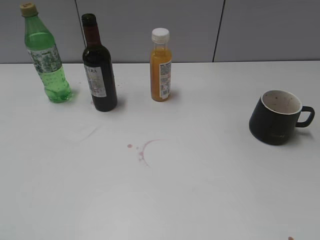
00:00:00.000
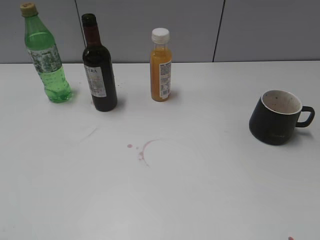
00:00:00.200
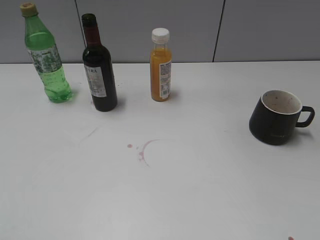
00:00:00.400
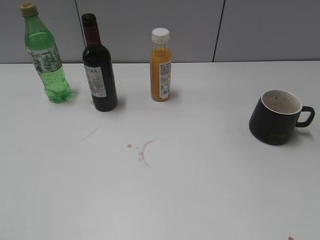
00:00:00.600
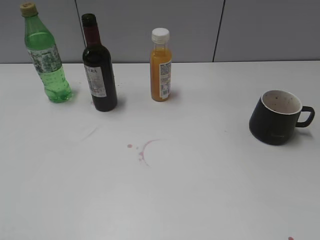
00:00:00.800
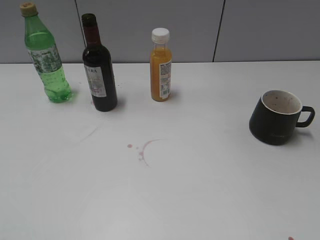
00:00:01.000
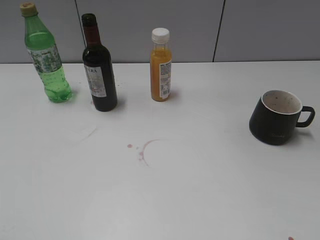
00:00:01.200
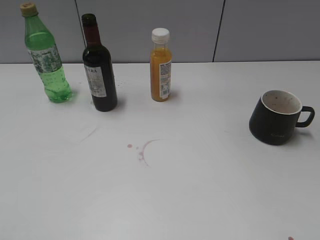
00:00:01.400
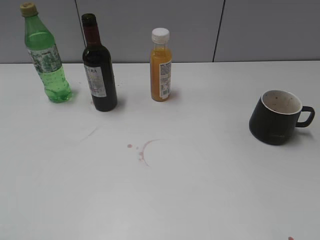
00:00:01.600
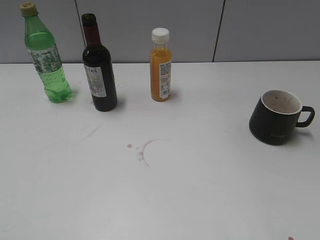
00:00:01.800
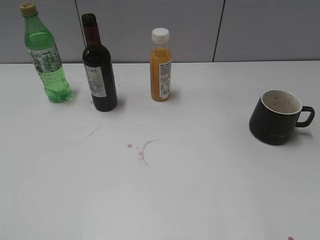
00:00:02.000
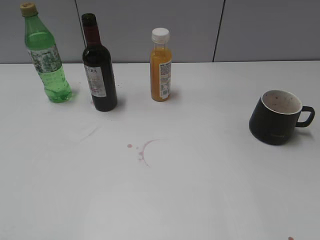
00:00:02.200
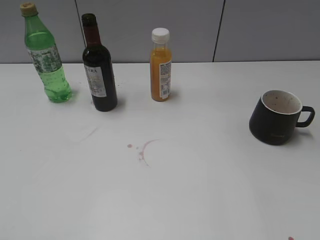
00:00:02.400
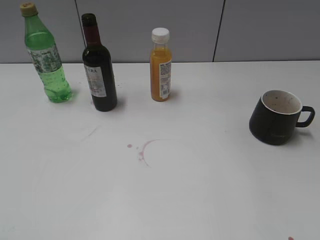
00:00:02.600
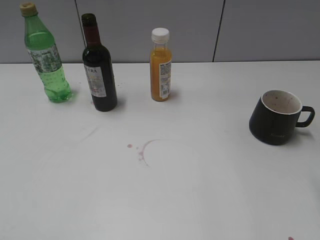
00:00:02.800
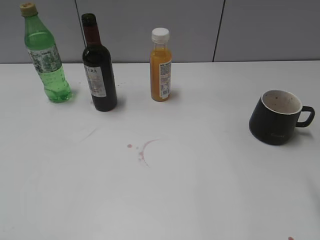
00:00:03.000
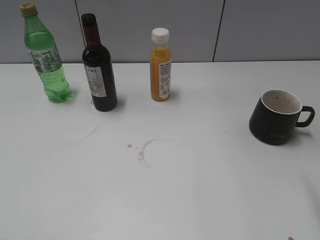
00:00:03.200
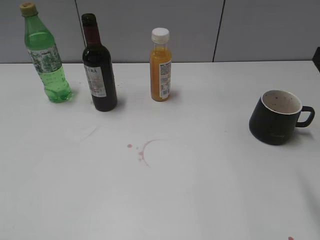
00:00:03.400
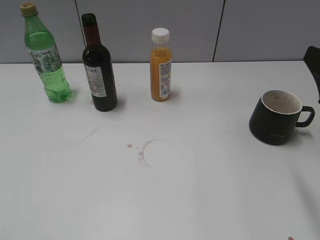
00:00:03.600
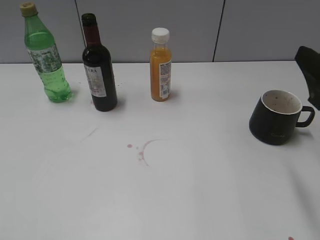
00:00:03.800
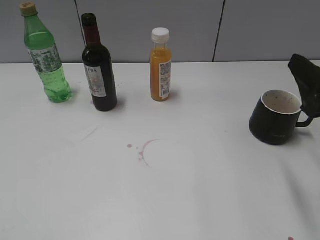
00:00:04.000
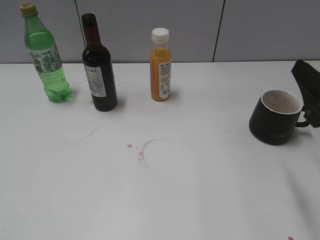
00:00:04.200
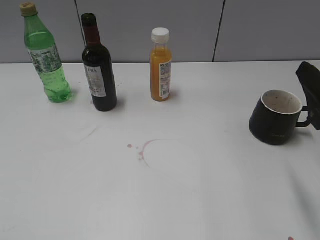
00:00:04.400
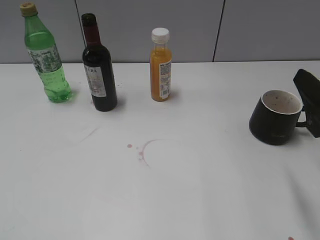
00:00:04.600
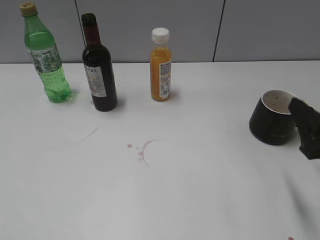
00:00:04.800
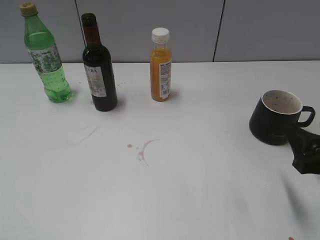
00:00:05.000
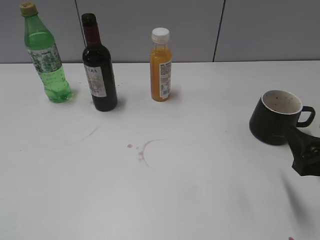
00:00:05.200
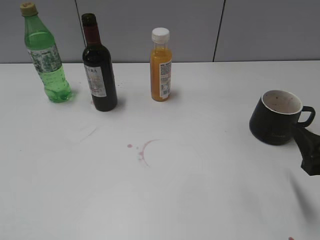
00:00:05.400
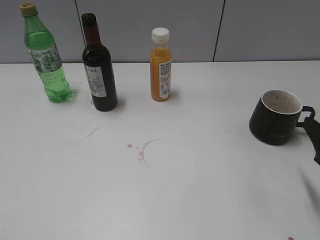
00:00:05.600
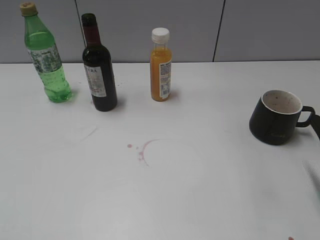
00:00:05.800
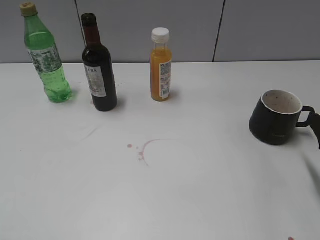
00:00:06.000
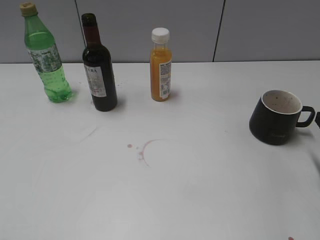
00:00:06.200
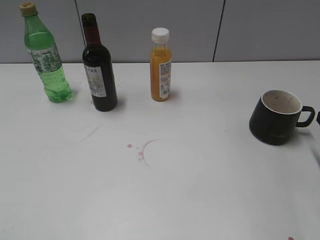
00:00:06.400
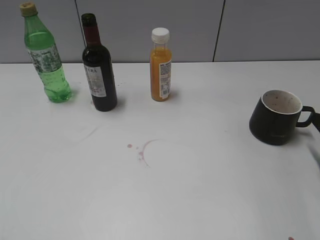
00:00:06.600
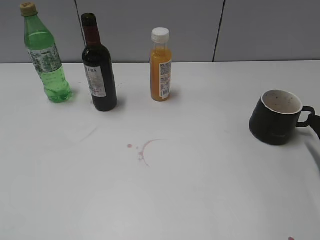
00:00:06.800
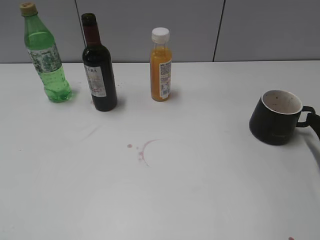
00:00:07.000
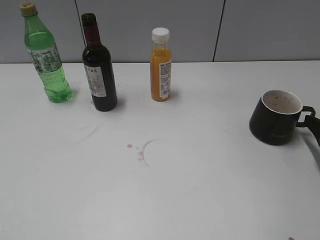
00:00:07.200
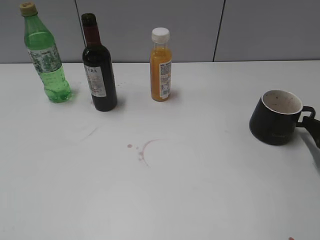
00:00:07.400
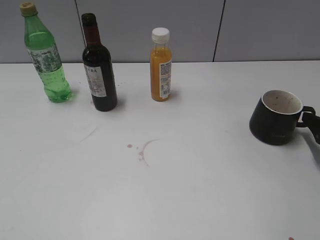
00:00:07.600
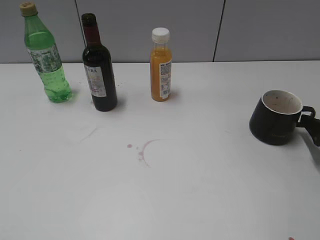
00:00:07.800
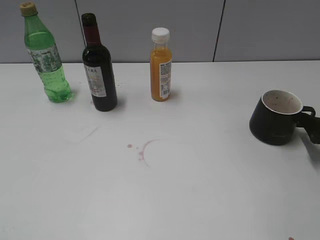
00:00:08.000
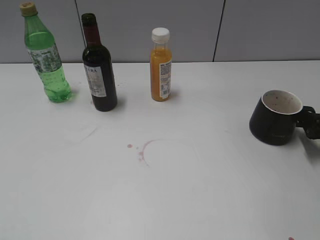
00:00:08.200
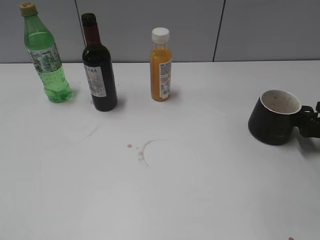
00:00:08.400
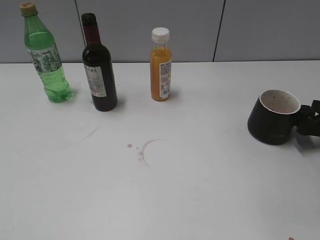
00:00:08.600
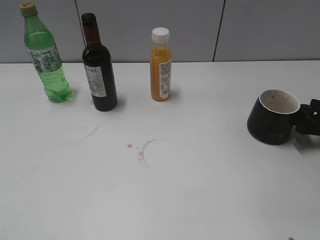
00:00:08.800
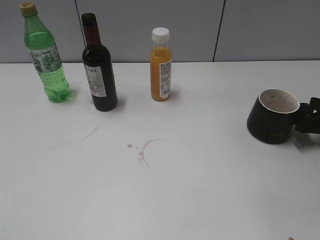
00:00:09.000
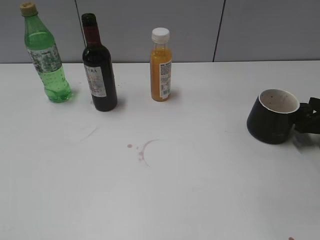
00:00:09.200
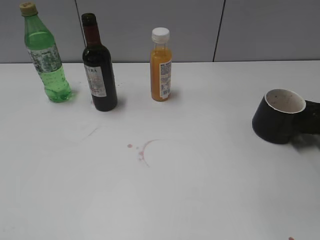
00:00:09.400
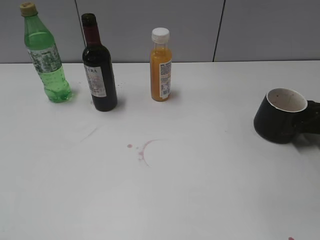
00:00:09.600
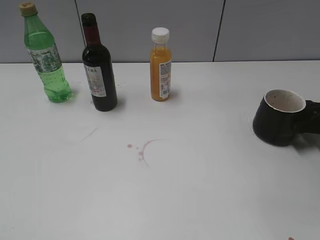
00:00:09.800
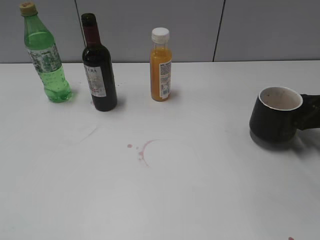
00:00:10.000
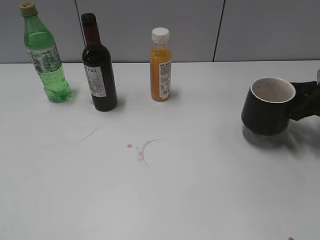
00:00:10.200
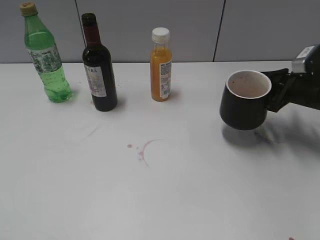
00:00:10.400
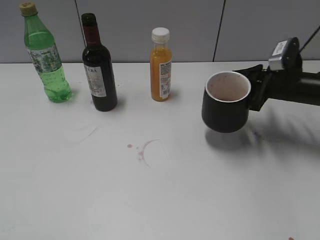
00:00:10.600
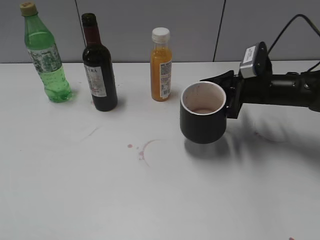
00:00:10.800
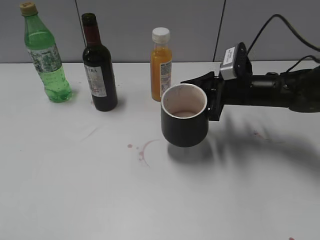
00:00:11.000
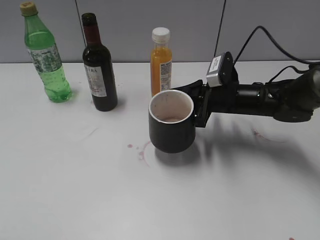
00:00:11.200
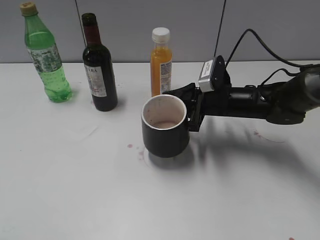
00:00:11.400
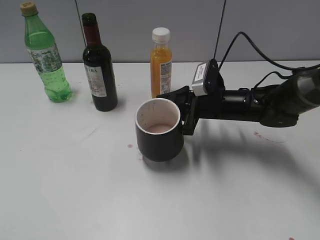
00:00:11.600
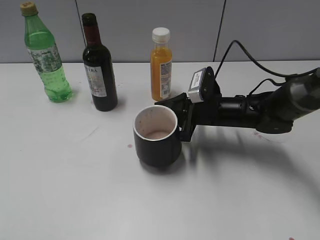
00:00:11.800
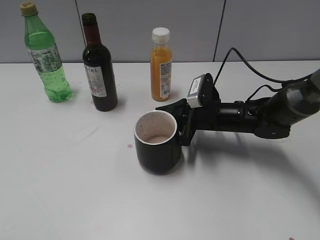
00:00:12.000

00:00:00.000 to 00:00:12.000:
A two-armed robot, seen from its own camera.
Step, 00:00:03.400 to 00:00:09.600: Grasp the black cup with right gripper.
00:00:03.000 to 00:00:04.400: The right gripper shifts some 5 cm downward.
00:00:04.400 to 00:00:06.000: The right gripper moves downward and to the right, approximately 10 cm.
00:00:06.000 to 00:00:07.600: The right gripper shifts some 10 cm forward, downward and to the right.
00:00:07.600 to 00:00:09.000: The right gripper shifts by some 5 cm.
00:00:09.000 to 00:00:10.400: The right gripper shifts approximately 10 cm to the left and upward, and closes up.
00:00:10.400 to 00:00:12.000: The right gripper moves to the left, roughly 15 cm.

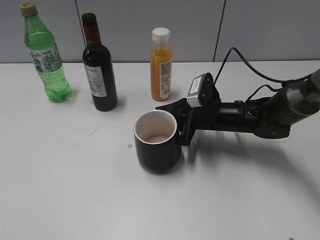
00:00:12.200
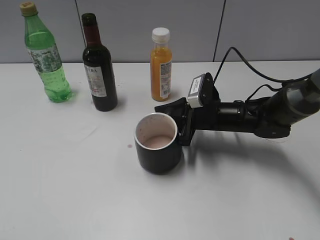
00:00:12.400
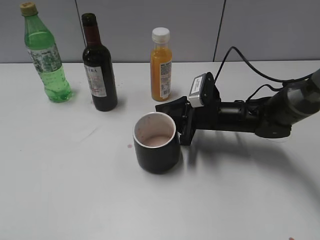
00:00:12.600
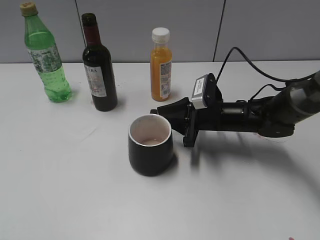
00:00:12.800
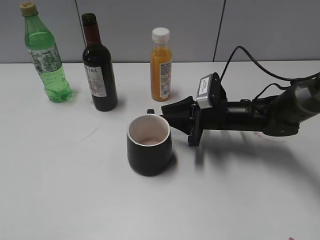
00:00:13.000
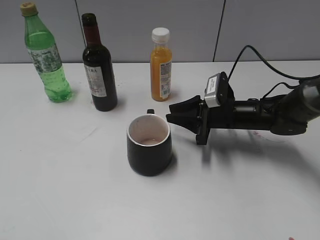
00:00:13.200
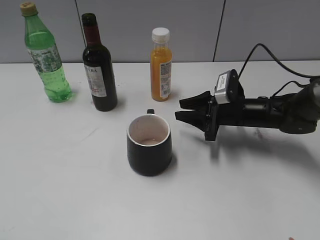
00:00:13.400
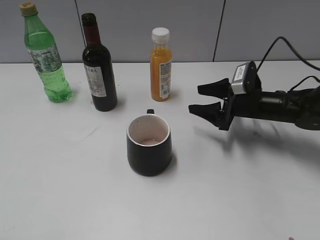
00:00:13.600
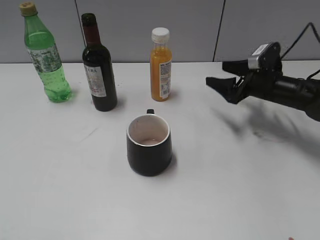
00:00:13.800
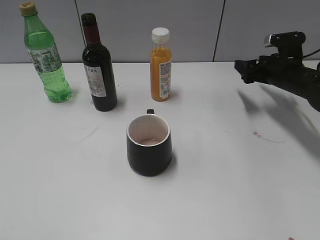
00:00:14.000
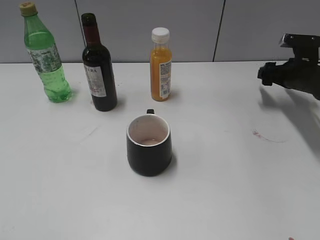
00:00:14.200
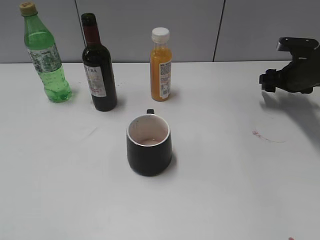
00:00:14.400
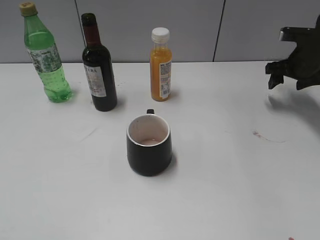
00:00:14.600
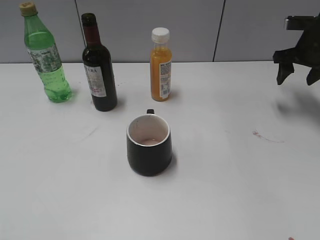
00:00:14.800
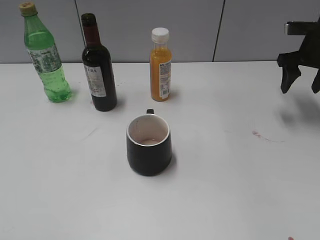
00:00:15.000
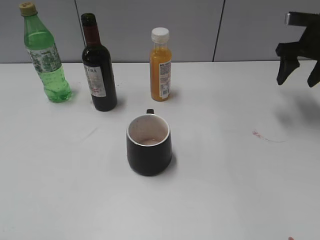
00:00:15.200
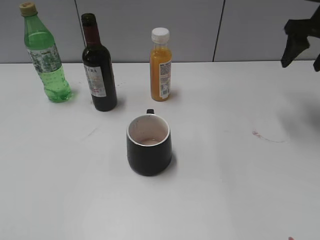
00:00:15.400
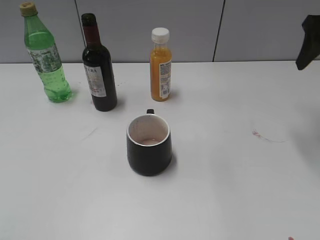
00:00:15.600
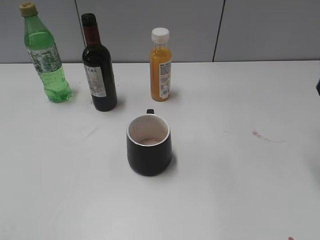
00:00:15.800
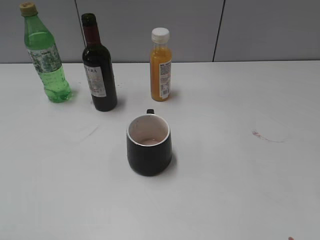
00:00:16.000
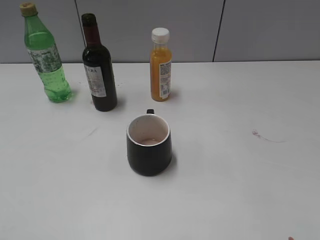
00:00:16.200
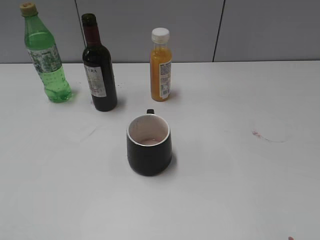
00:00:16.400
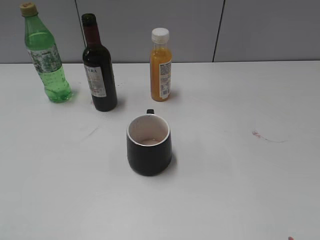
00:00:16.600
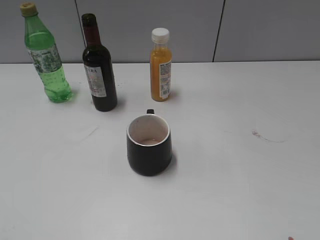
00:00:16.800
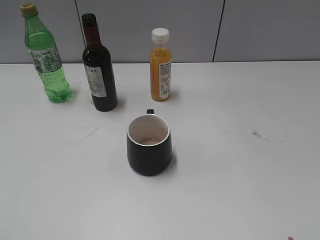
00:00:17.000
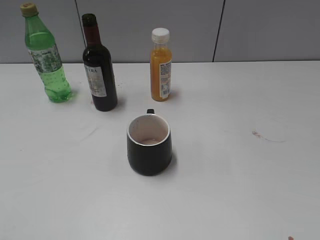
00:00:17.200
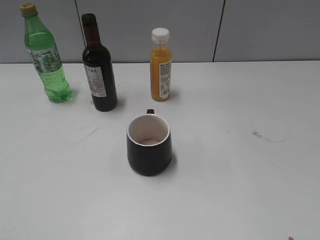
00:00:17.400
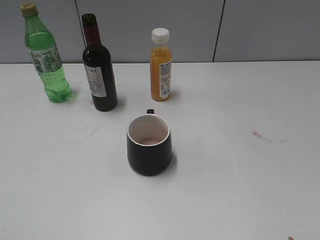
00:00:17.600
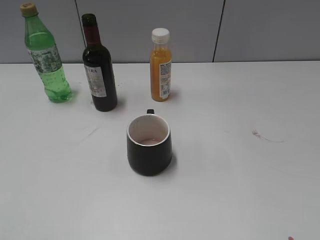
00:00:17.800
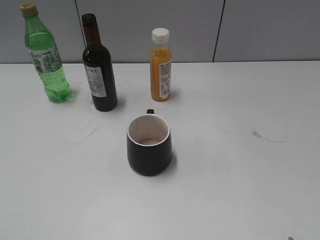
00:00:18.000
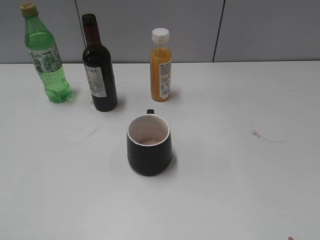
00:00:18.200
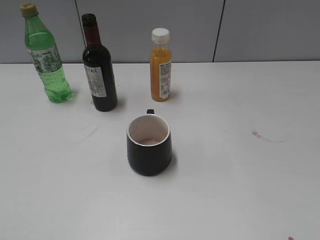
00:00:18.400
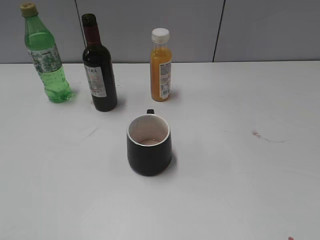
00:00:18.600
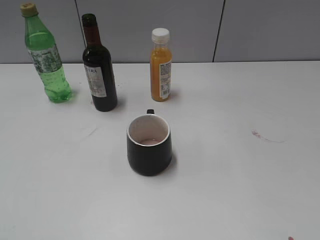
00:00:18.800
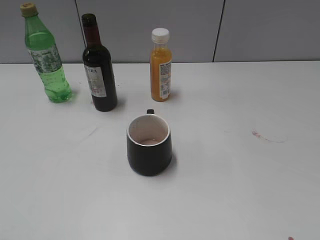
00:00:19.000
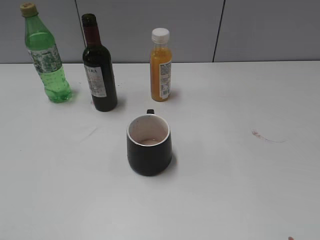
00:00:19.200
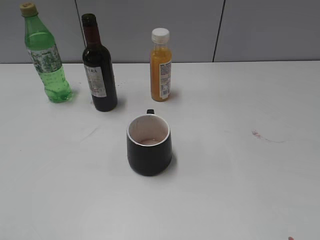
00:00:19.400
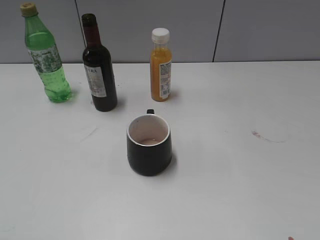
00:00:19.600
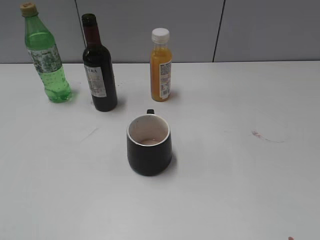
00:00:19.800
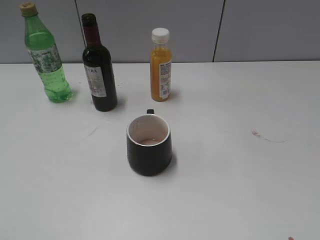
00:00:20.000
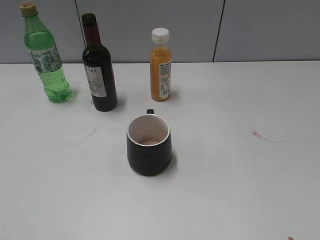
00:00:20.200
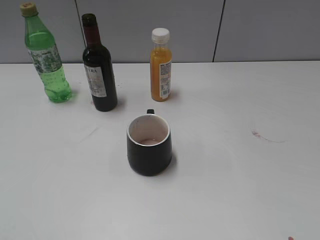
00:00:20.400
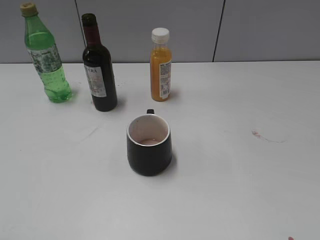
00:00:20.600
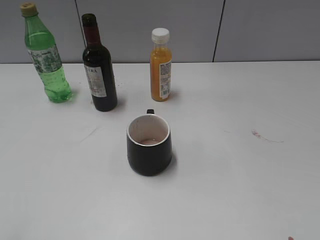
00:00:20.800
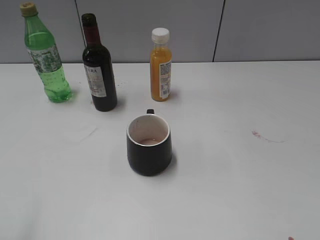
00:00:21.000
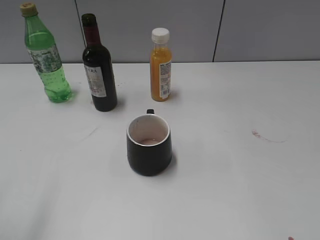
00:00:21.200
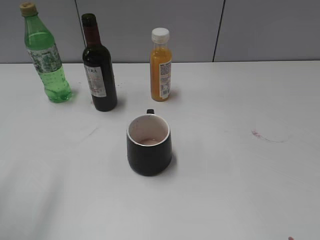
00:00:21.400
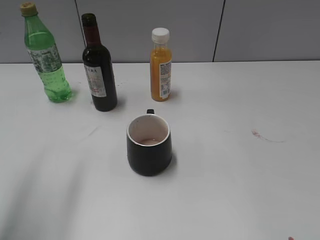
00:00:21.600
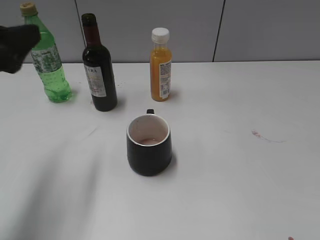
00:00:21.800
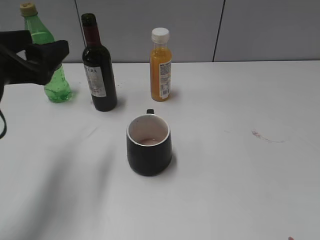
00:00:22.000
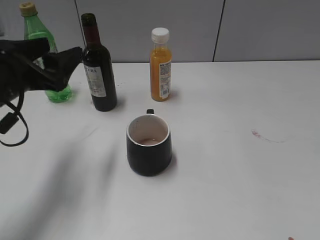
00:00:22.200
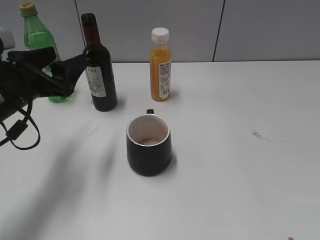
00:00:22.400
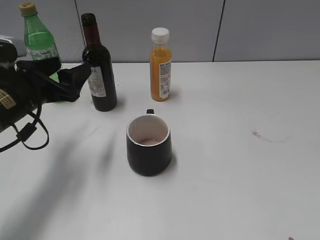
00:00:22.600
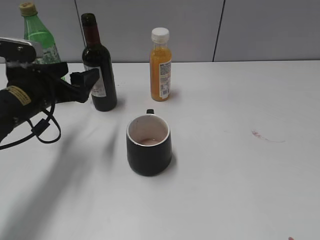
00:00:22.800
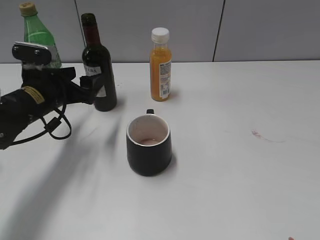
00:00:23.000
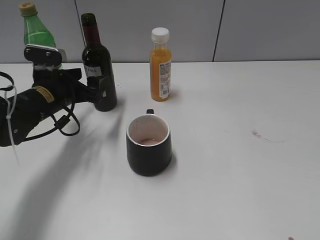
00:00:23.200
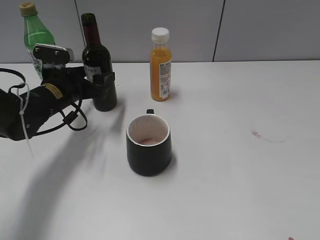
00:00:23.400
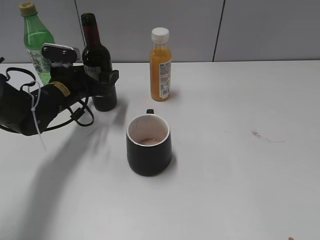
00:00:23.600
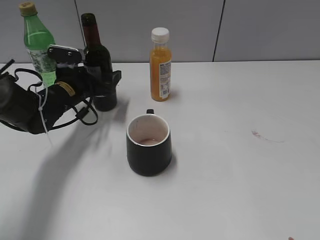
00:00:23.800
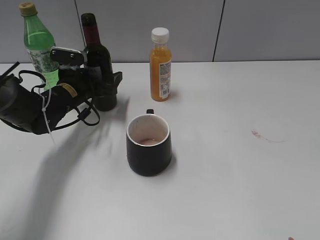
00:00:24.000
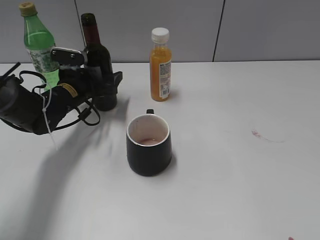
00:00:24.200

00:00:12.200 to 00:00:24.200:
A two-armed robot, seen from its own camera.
00:00:12.200 to 00:00:13.800: The right gripper is displaced to the right and forward by approximately 15 cm, and opens.
00:00:13.800 to 00:00:15.200: The right gripper heads upward and to the right, covering approximately 15 cm.
00:00:15.200 to 00:00:16.600: The right gripper heads backward, covering about 35 cm.
00:00:18.200 to 00:00:19.800: Both grippers stay put.
00:00:21.200 to 00:00:22.600: The left gripper is displaced forward, downward and to the right by approximately 25 cm.
00:00:22.600 to 00:00:24.200: The left gripper moves forward and downward, approximately 15 cm.
